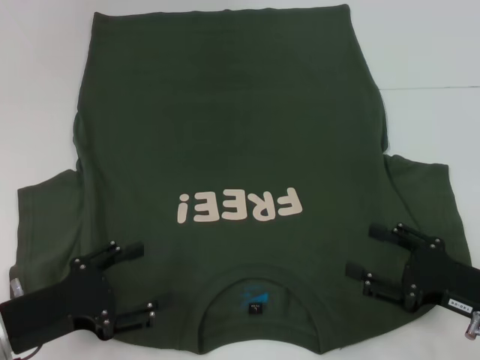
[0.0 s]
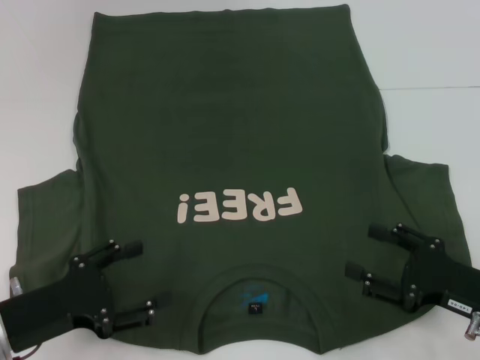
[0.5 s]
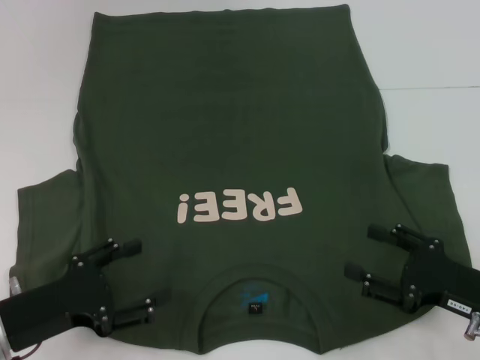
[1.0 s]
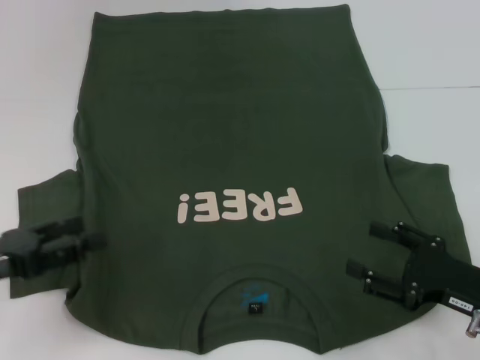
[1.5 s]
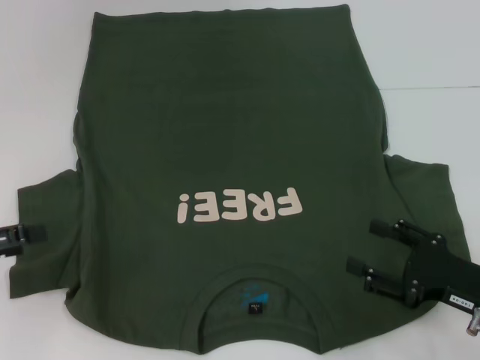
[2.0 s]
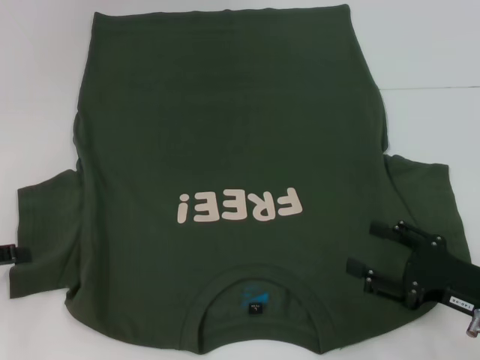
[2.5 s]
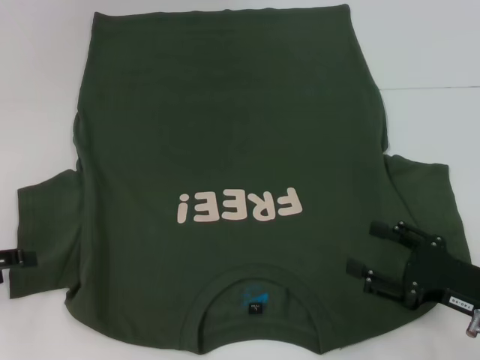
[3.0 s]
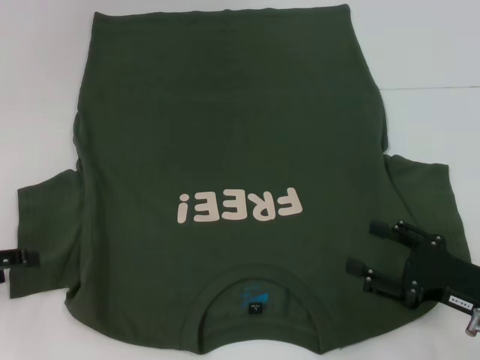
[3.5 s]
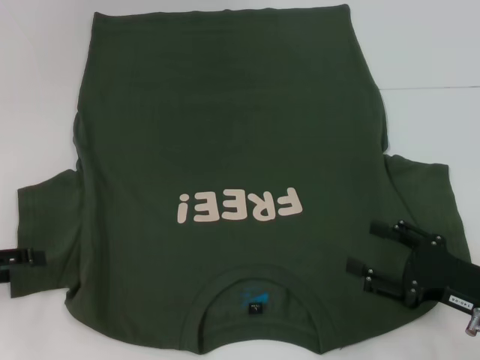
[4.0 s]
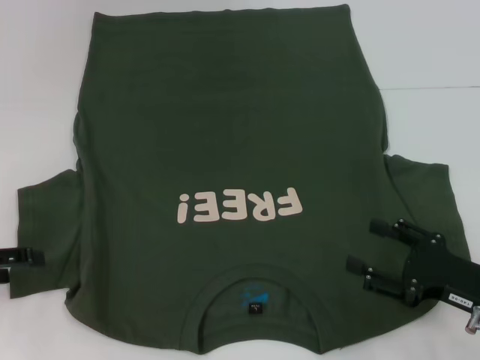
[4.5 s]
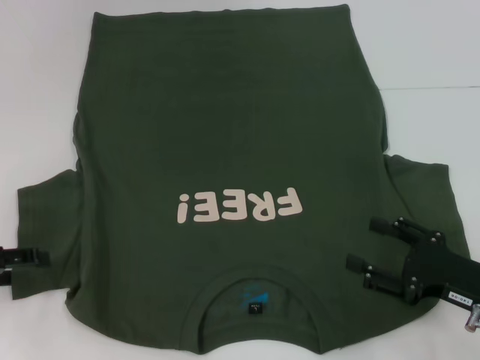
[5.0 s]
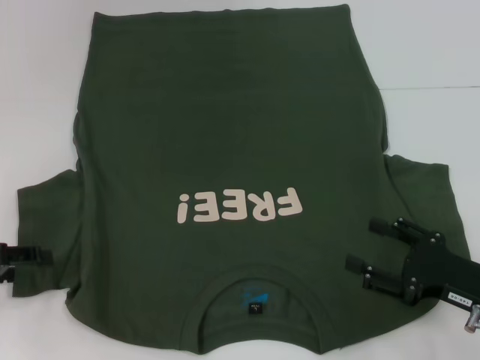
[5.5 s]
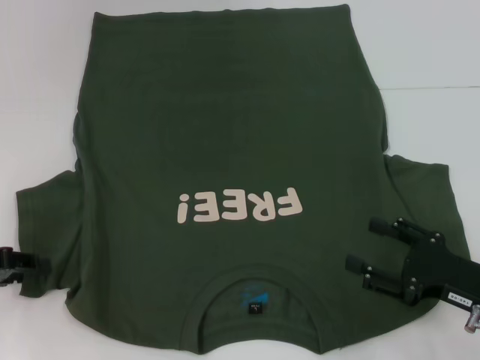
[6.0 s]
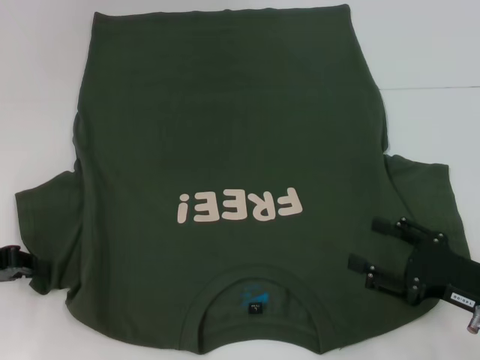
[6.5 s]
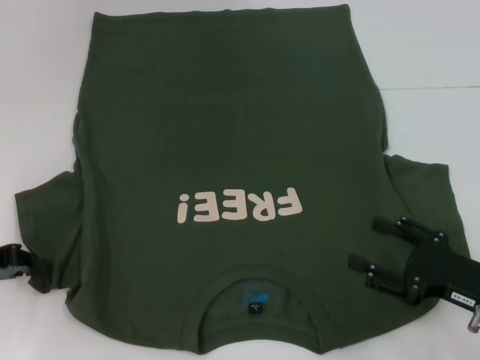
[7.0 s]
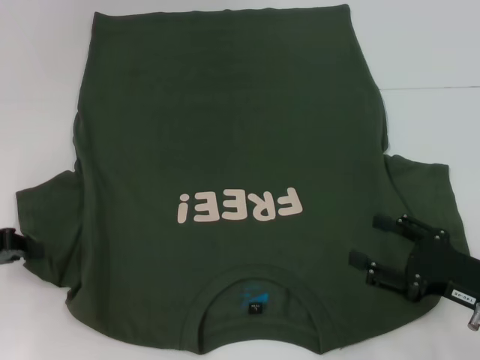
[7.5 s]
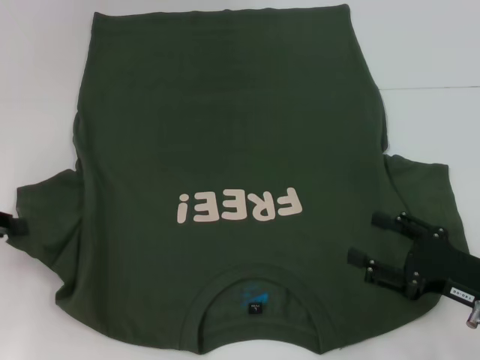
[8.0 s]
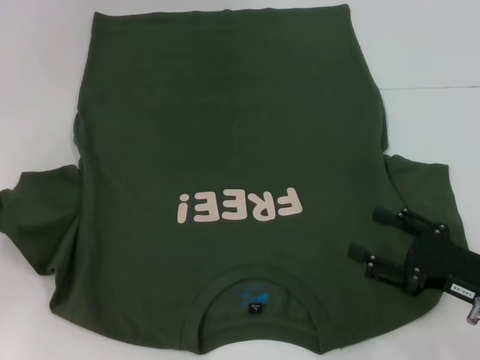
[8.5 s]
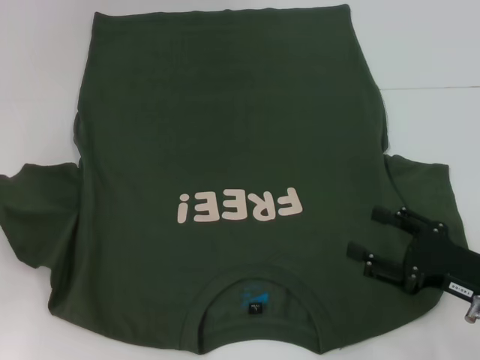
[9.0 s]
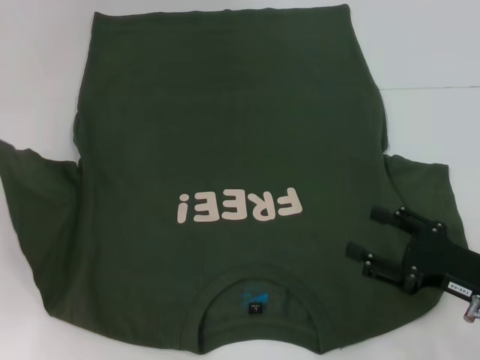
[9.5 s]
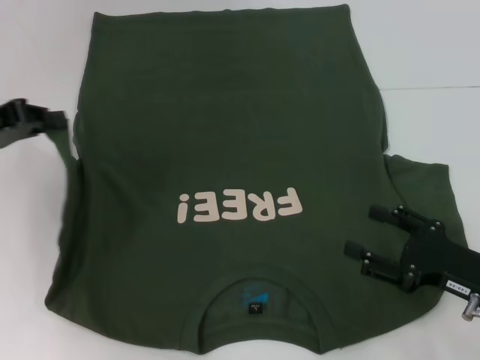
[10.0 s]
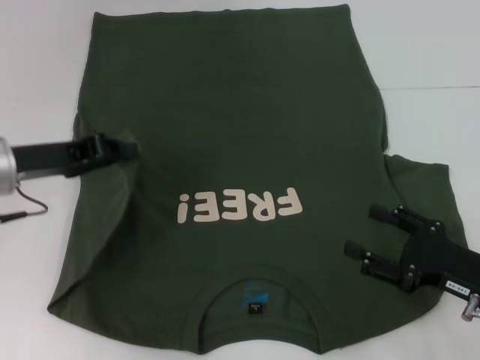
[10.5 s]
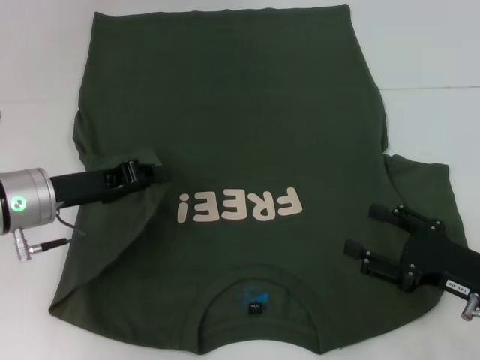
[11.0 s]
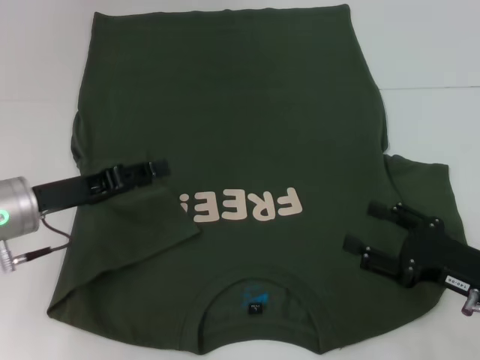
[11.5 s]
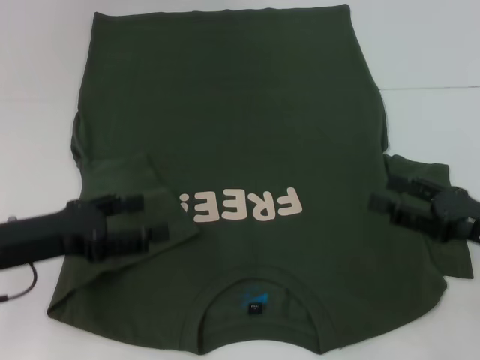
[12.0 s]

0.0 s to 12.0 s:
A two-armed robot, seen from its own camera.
Step, 0.0 to 11.0 s: Fold the bottom left sleeve with your left hand.
0.0 to 2.0 s: The left gripper travels to the left and upward by some 15 cm.
4.0 to 6.0 s: The grippers move only a little.
6.0 to 8.0 s: The left gripper closes.
8.0 to 10.0 s: The left gripper shifts roughly 5 cm forward.
10.0 to 12.0 s: The left gripper shifts some 10 cm backward, downward and to the right, and opens its fingers. The right gripper changes place by approximately 5 cm.

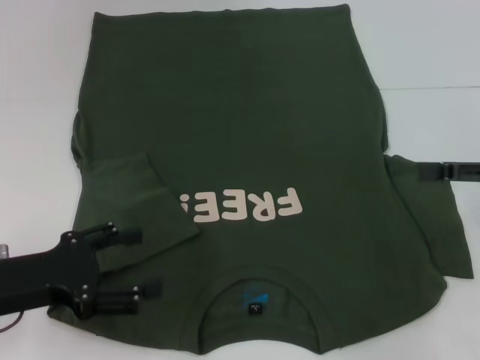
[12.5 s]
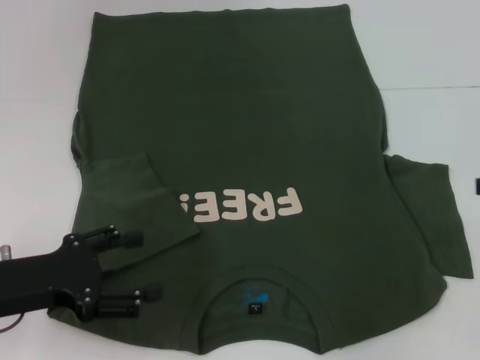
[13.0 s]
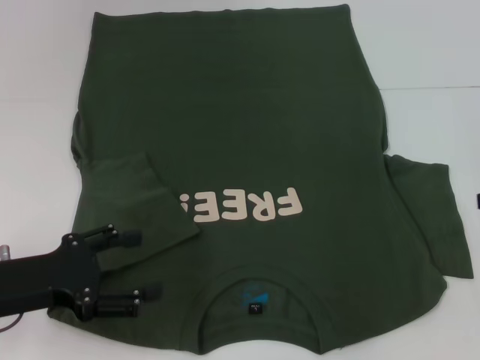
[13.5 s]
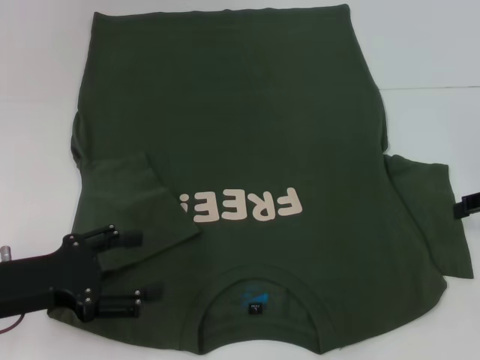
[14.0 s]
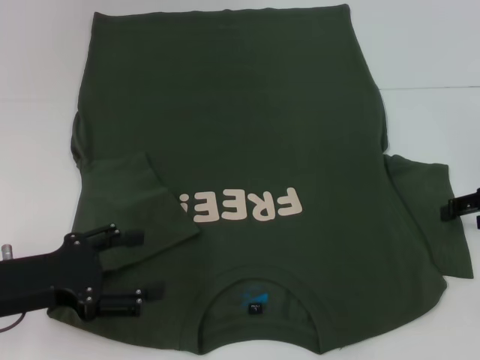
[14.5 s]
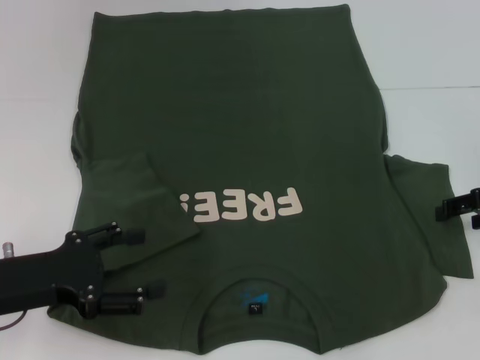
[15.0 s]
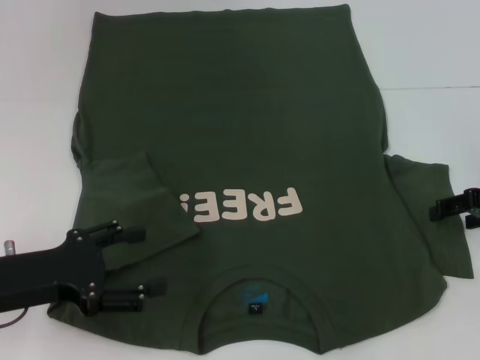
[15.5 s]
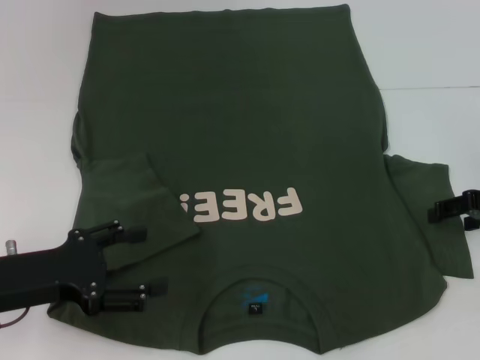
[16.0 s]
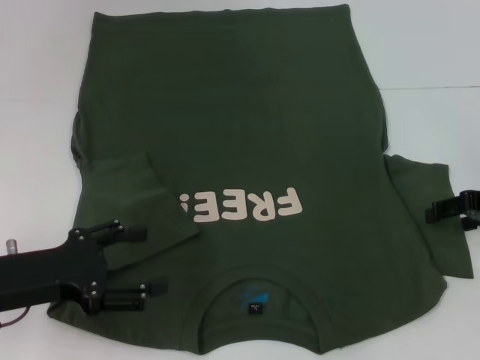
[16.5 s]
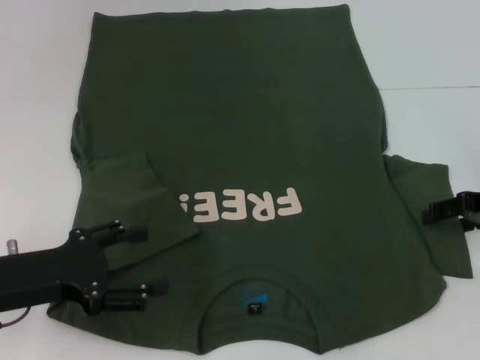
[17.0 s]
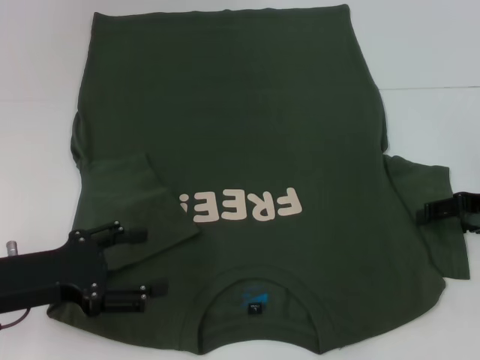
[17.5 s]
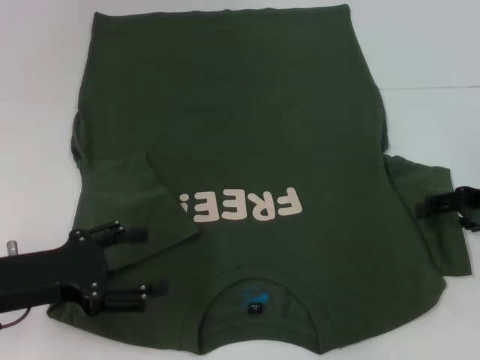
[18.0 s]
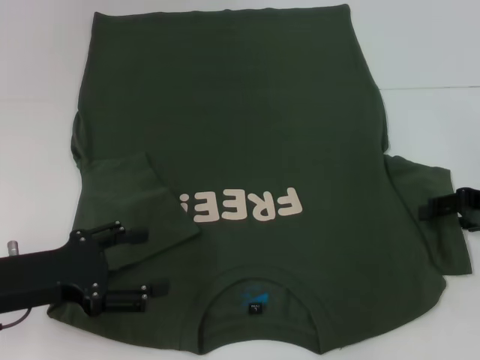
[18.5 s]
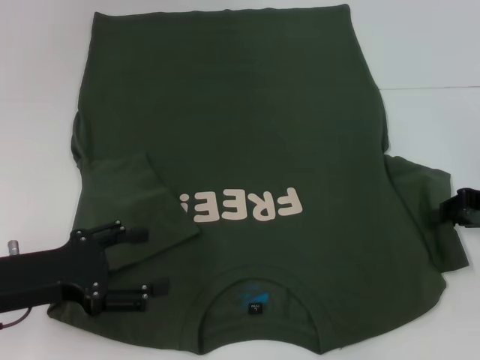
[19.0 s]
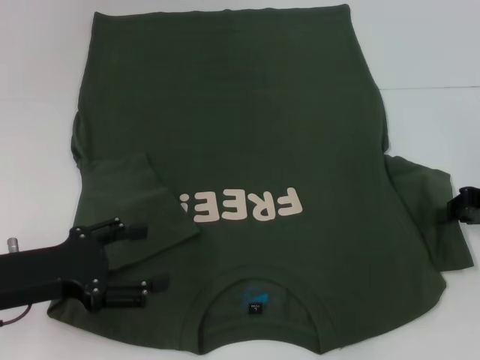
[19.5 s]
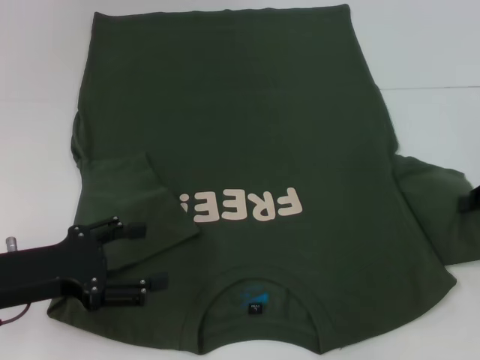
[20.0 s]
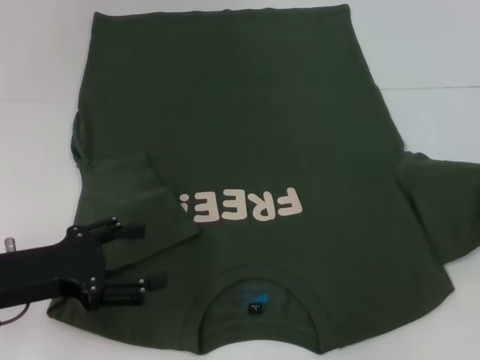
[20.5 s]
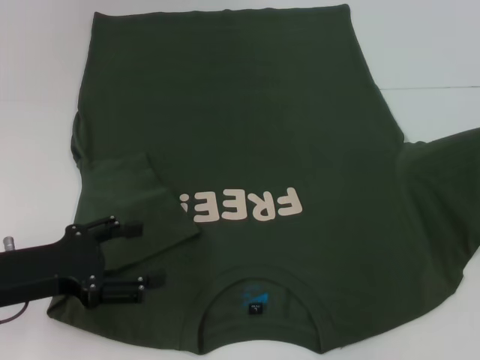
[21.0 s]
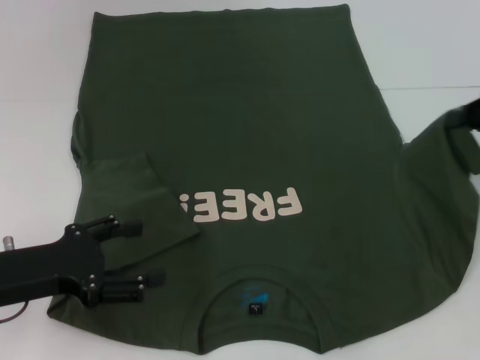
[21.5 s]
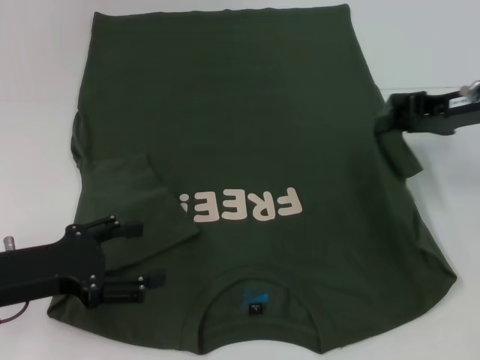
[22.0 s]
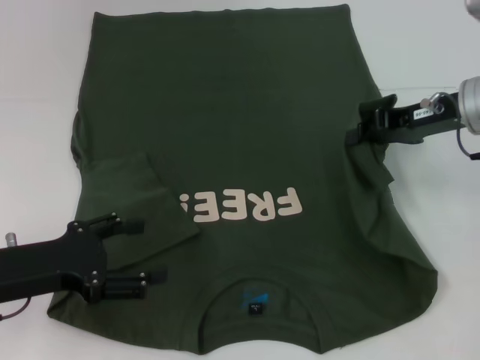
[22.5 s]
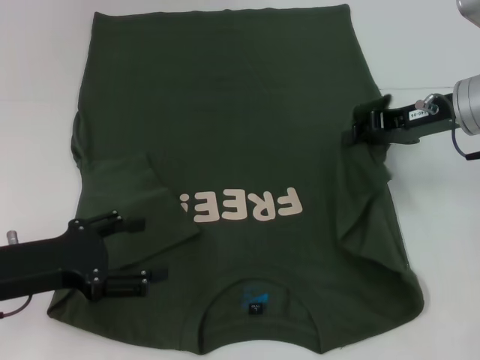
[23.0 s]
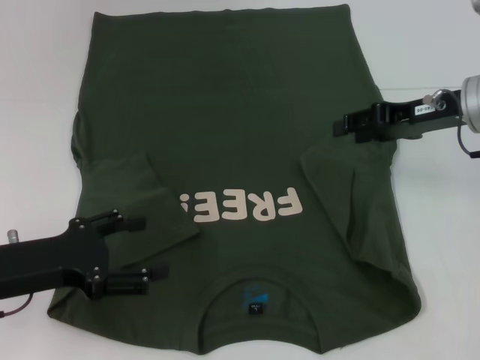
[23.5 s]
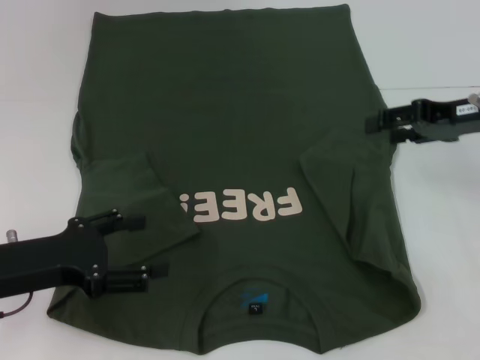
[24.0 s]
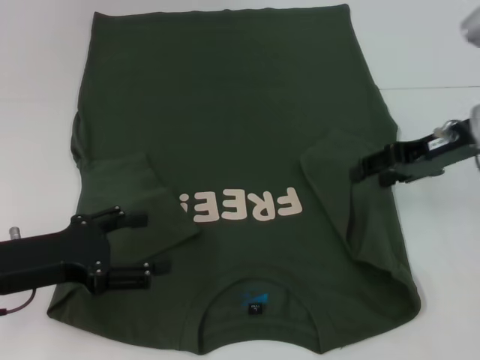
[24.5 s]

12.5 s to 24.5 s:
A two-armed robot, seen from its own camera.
Step, 12.5 to 23.0 s: Fold the bottom right sleeve with your right hand.
12.5 to 14.5 s: The right gripper travels forward by some 5 cm.
14.5 to 18.5 s: The grippers make only small movements.
18.5 to 20.5 s: The right gripper moves some 5 cm, and closes its fingers.
20.5 to 22.5 s: The right gripper heads to the left and forward, covering roughly 15 cm.
22.5 to 24.5 s: The right gripper opens.

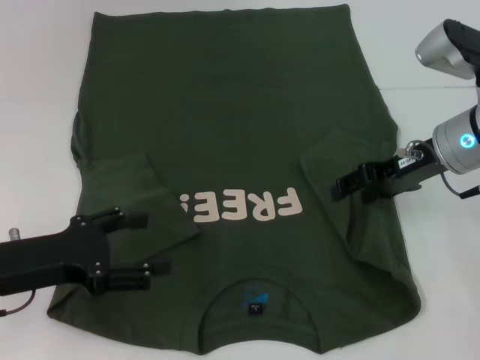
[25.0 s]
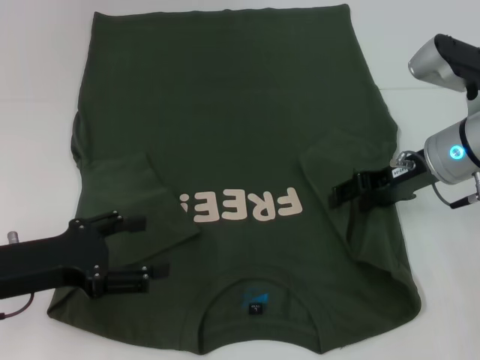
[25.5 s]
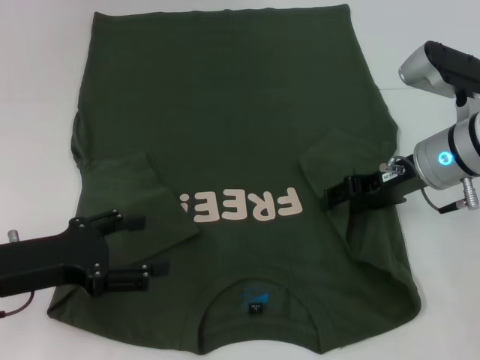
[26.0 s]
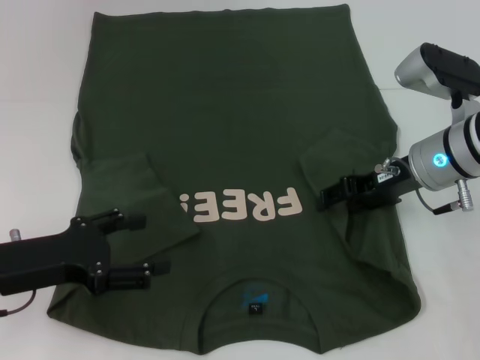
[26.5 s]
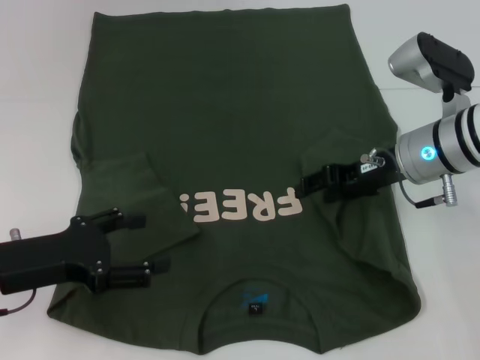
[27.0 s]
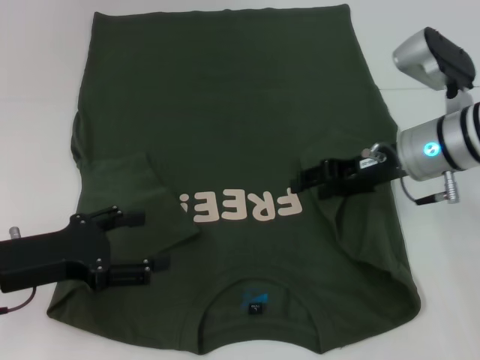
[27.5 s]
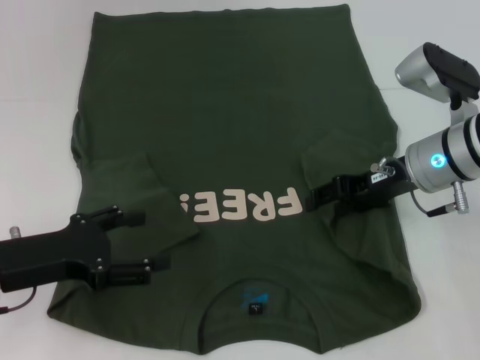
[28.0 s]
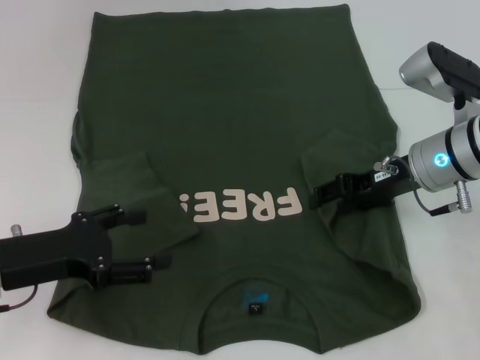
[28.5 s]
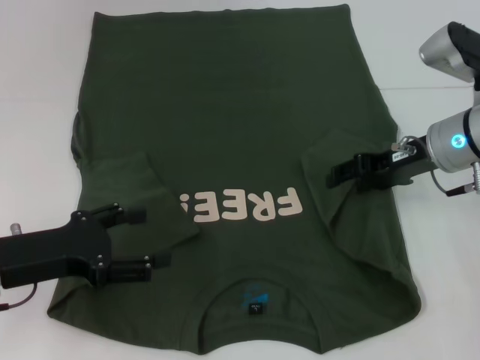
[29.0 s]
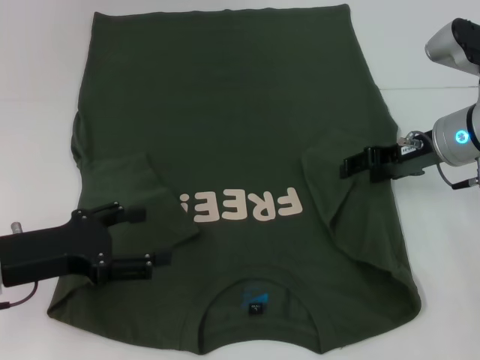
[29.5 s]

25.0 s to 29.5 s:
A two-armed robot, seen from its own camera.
25.0 to 29.5 s: The grippers stay close to where they were, moving slightly.
